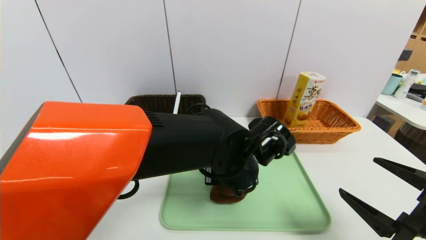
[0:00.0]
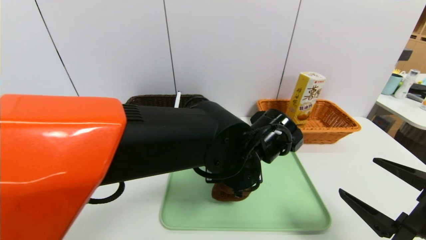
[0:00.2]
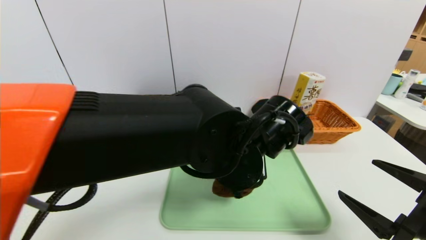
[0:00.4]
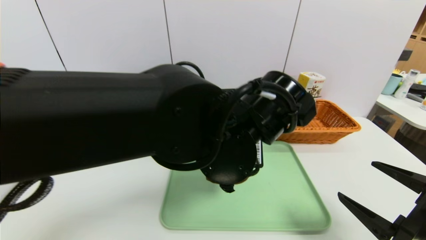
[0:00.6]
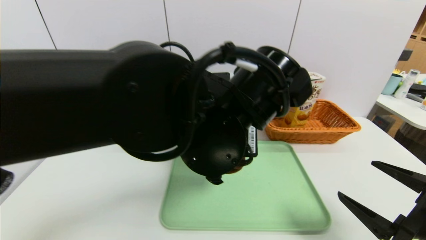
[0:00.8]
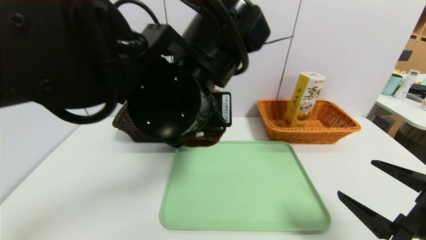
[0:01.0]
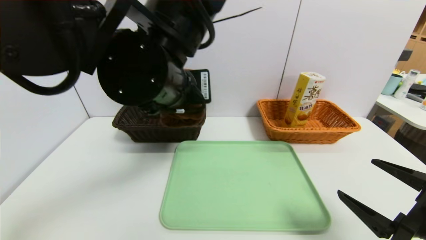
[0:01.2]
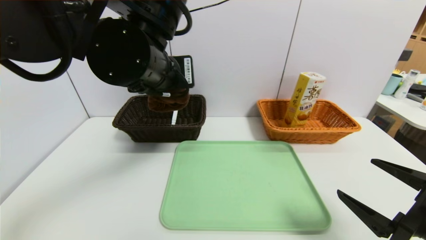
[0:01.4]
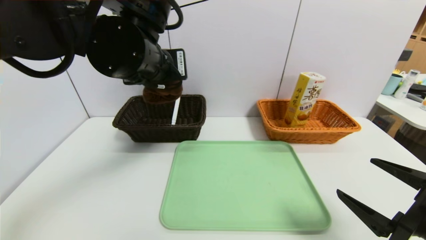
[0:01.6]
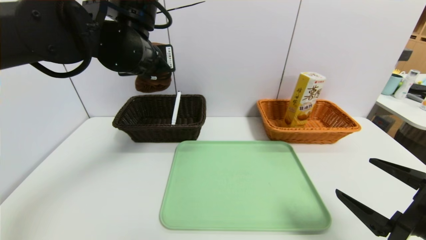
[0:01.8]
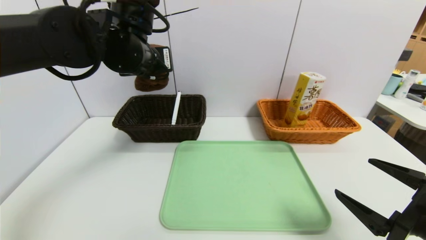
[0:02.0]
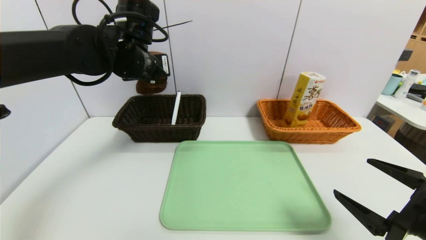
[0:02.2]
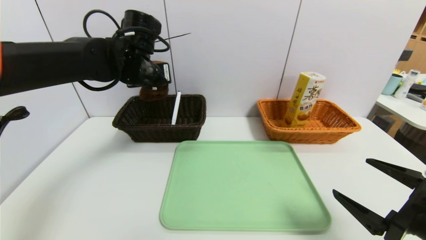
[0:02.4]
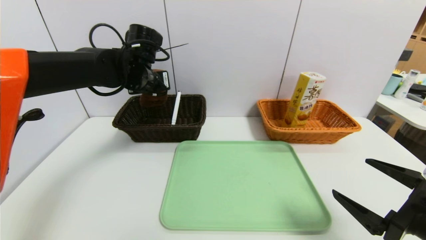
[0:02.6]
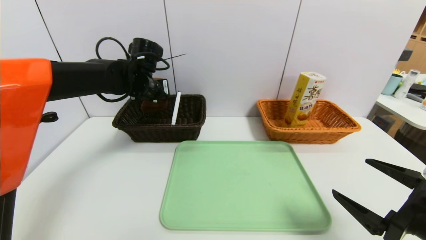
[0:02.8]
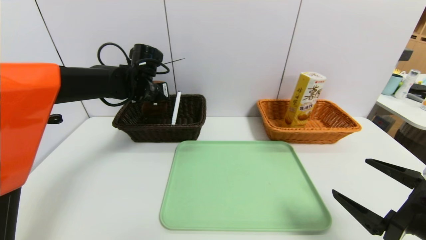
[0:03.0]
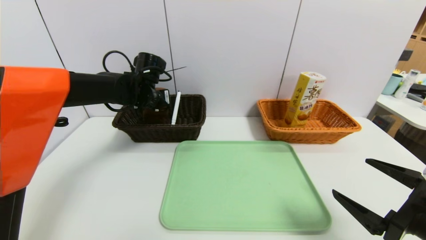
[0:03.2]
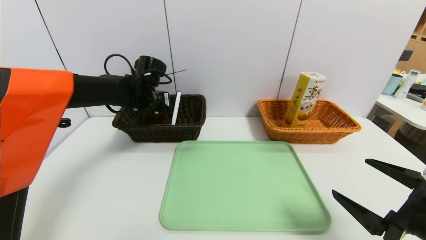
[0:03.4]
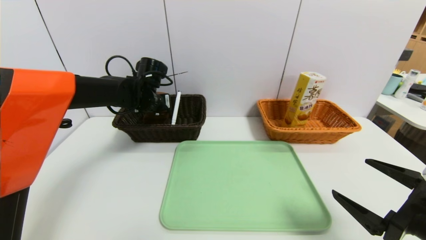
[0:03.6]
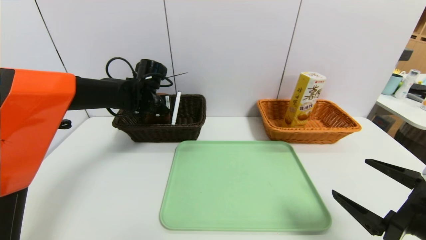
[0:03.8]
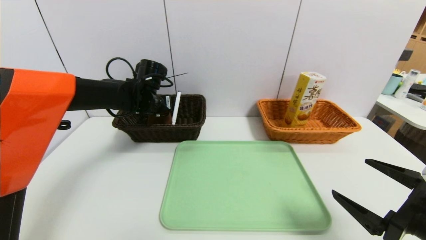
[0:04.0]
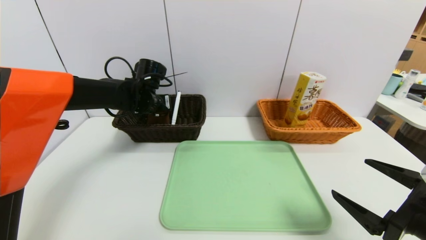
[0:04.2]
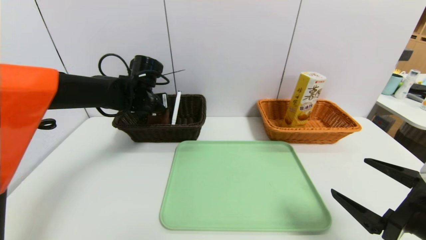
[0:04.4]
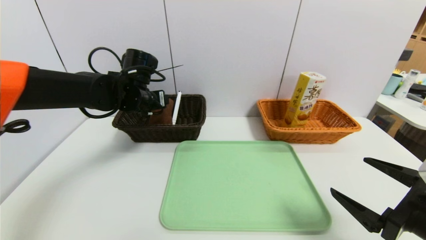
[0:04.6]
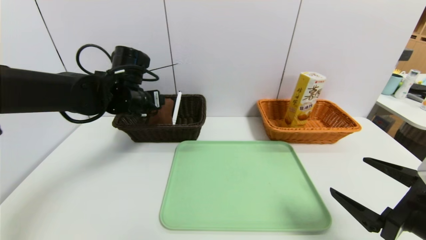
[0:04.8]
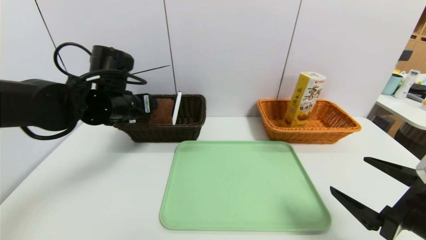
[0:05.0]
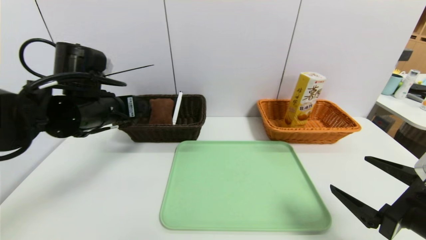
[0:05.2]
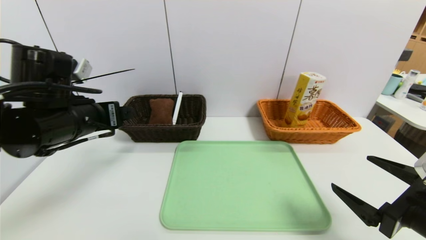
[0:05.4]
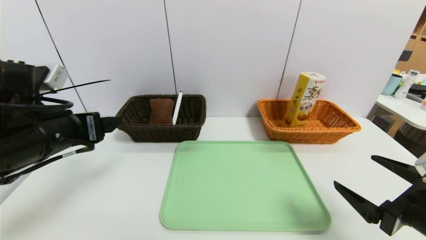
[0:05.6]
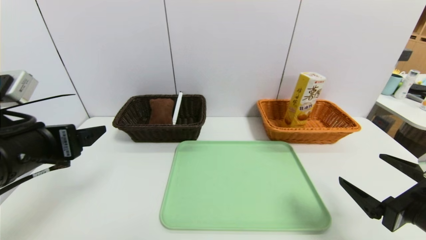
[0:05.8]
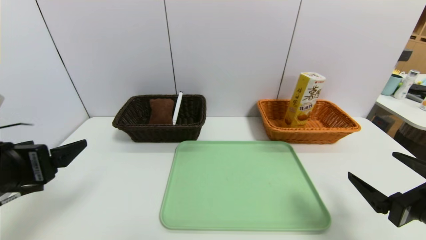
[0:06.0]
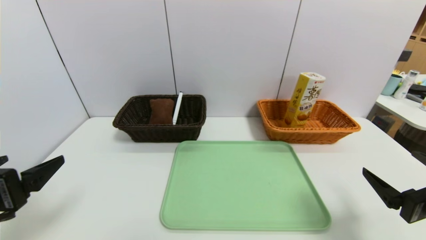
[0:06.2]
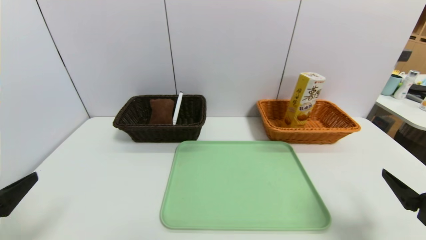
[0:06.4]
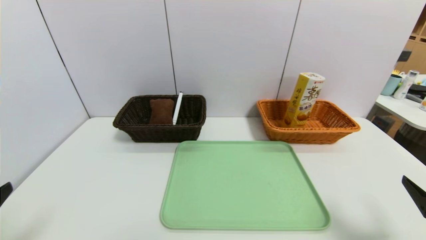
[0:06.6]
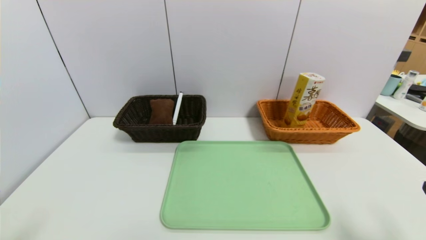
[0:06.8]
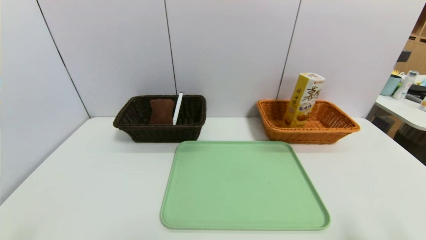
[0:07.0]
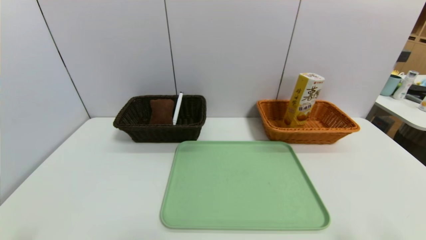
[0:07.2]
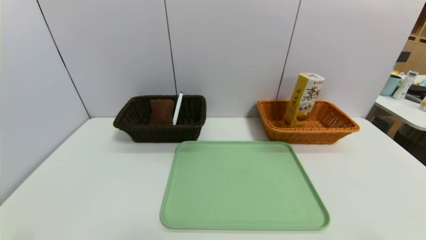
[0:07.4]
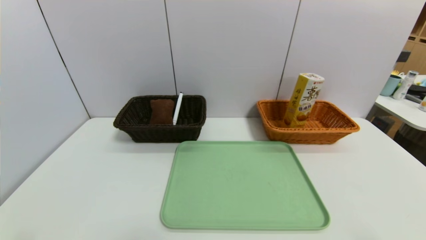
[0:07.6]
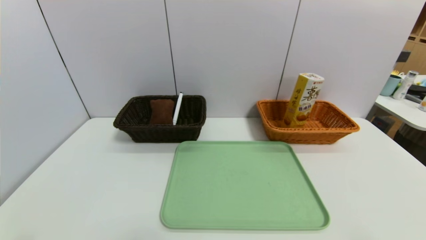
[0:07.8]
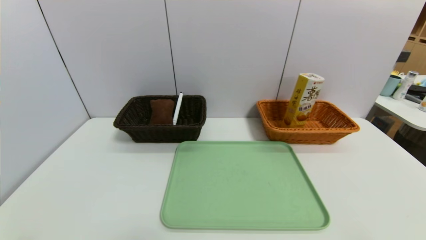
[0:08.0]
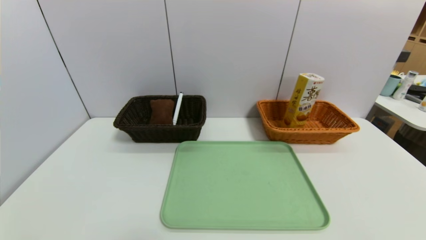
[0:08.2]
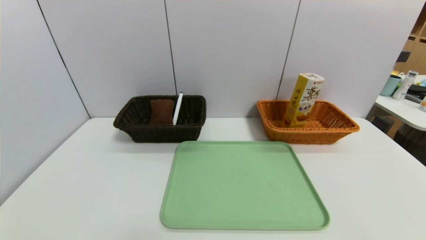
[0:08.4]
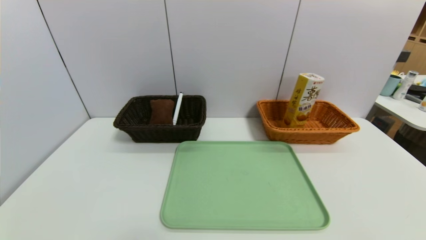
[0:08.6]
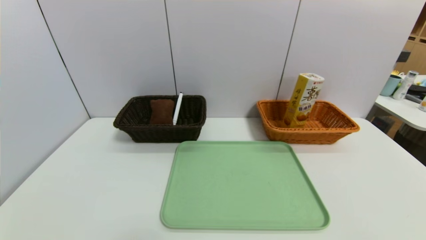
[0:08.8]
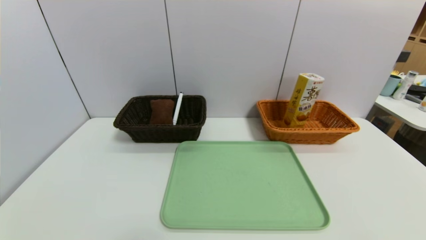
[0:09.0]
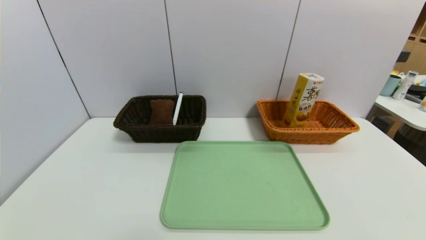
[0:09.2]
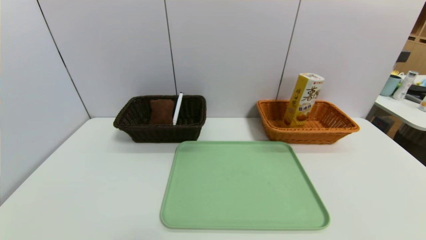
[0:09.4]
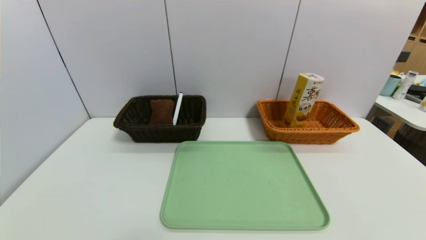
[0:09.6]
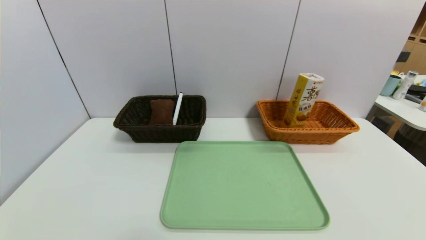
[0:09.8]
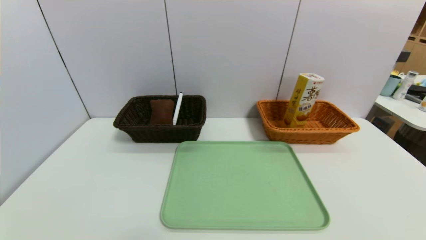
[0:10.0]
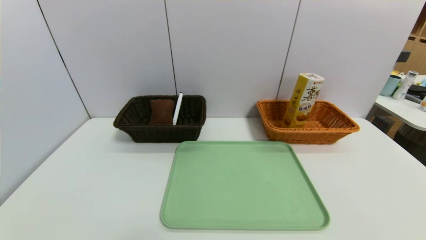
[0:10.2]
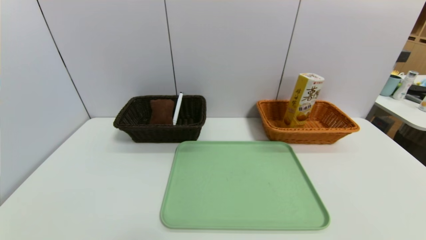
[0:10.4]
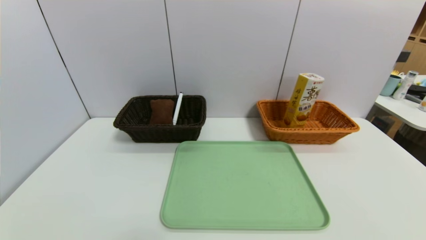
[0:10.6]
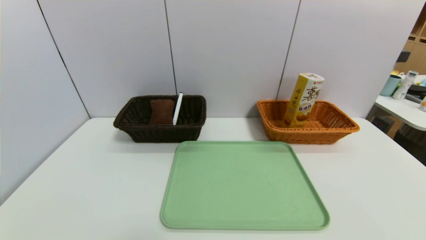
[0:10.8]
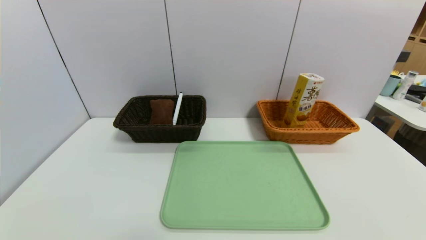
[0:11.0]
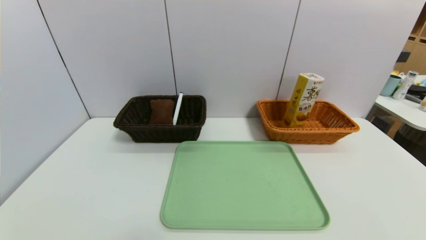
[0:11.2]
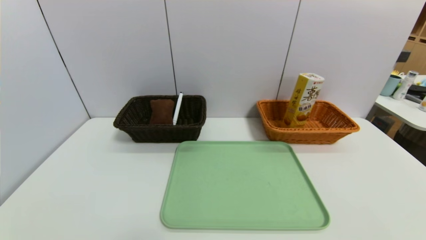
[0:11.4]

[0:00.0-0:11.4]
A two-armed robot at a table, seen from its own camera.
Task of the whole recording: place the food in the right basket with the right gripper, and place the non food items in the left basket with the left gripper.
Step, 0:00.0 to 0:04.4: Grasp the brown towel and put it in the left basket.
0:00.0 to 0:01.4: The left gripper goes approximately 20 cm upward and to the left.
0:01.4 to 0:02.8: The left gripper is displaced forward, downward and to the left by approximately 20 cm.
0:02.8 to 0:04.2: The left gripper opens.
0:04.2 to 0:05.6: The left gripper is displaced backward by some 25 cm.
0:05.6 to 0:07.2: The right gripper moves backward, about 10 cm; the left gripper goes about 20 cm backward.

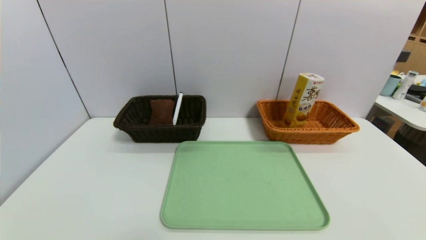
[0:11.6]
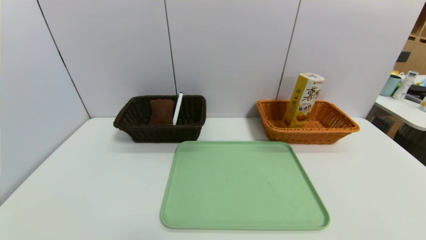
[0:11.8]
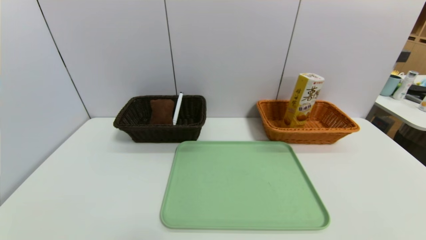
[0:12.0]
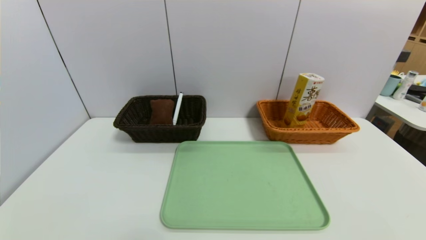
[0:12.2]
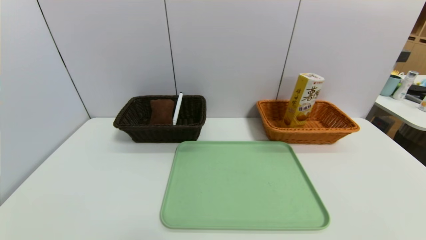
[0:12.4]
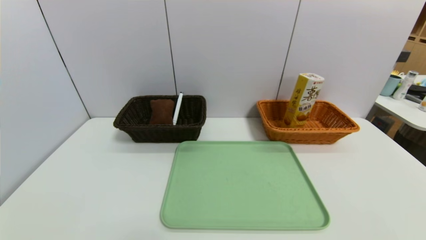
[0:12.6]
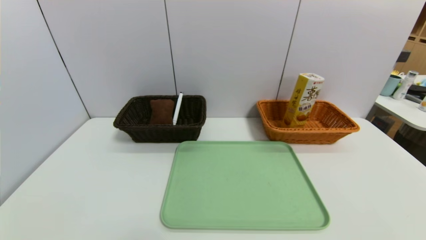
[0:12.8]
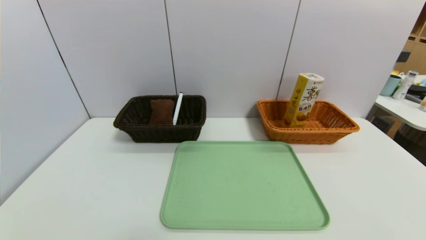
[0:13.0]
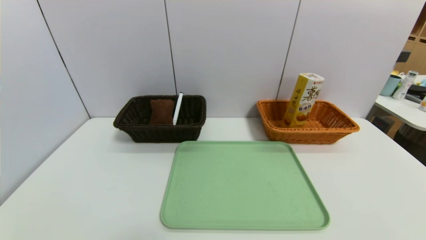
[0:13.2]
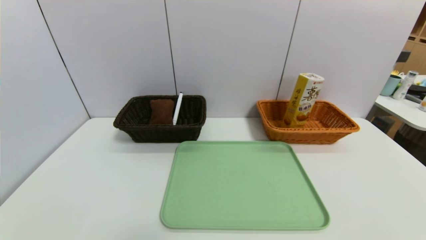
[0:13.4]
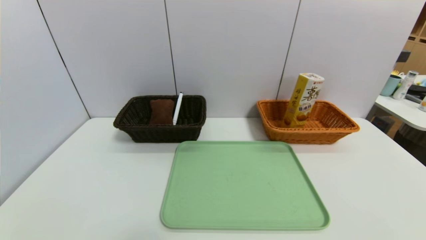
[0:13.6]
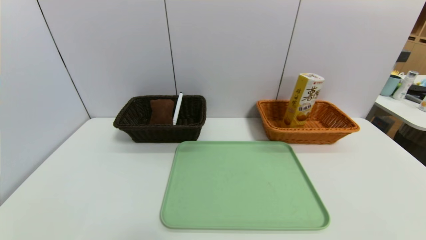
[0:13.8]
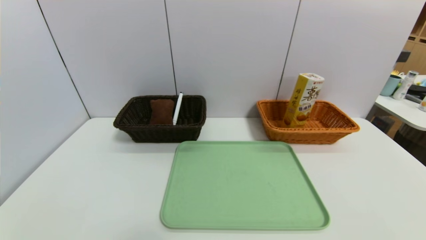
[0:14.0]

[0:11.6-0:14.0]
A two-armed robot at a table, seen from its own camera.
Task of the whole recording: place the food in the right basket with the right gripper, and place the non food items in the left basket with the left gripper.
0:11.6 to 0:14.0: The two grippers keep their place.

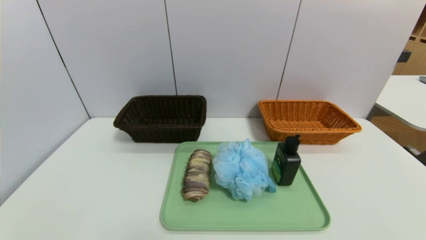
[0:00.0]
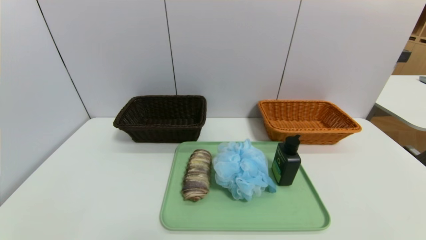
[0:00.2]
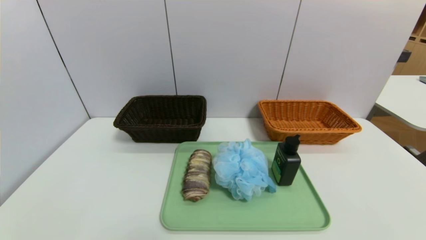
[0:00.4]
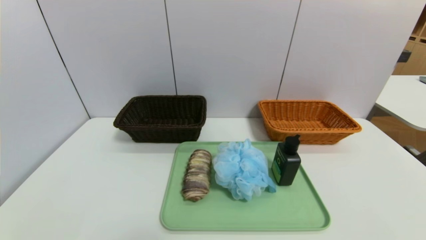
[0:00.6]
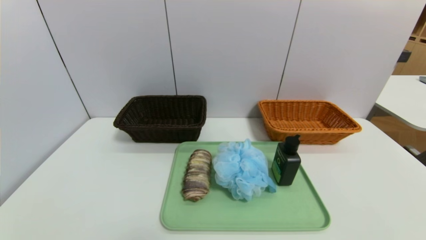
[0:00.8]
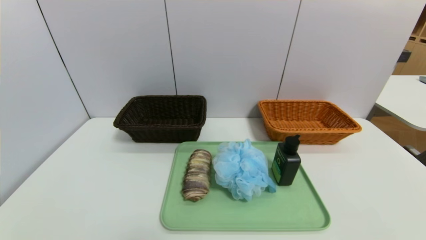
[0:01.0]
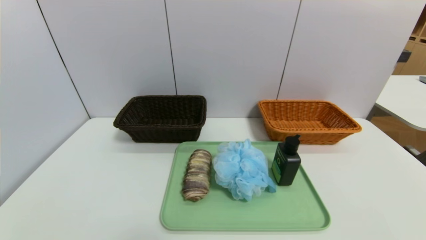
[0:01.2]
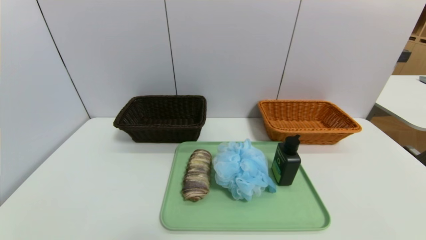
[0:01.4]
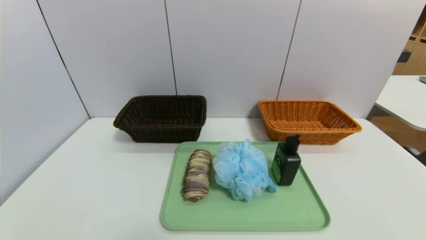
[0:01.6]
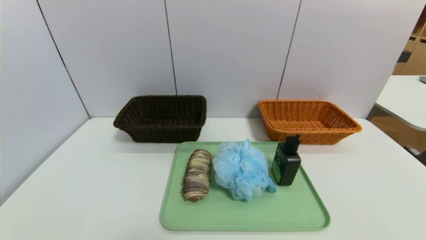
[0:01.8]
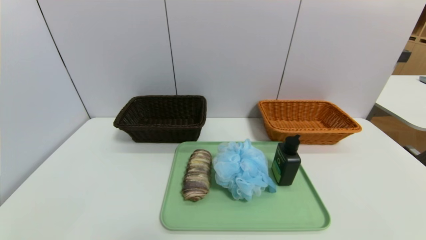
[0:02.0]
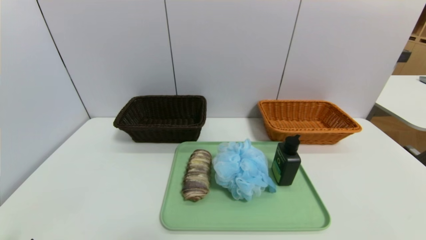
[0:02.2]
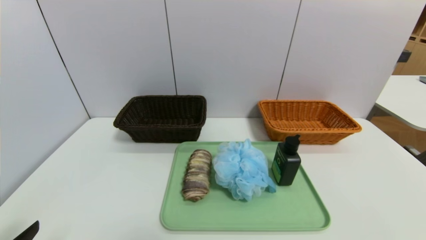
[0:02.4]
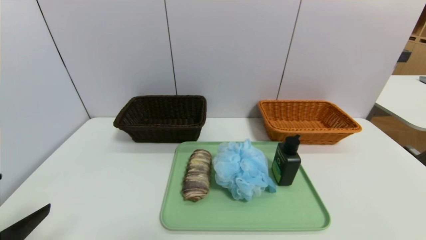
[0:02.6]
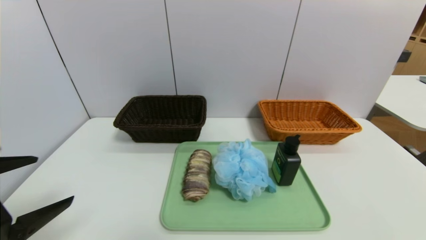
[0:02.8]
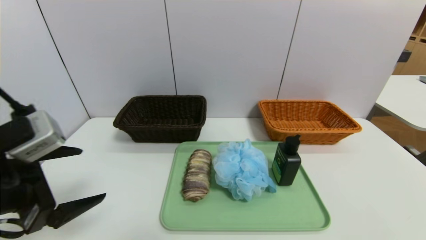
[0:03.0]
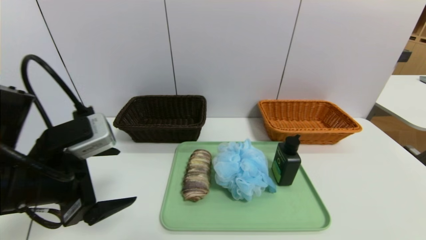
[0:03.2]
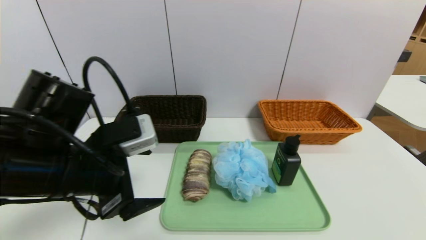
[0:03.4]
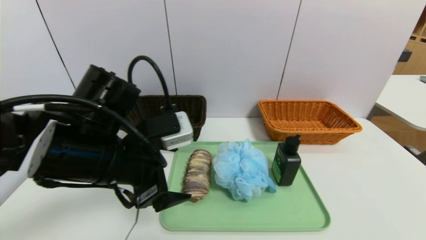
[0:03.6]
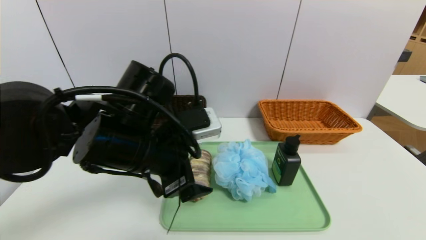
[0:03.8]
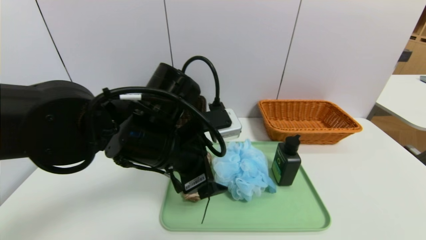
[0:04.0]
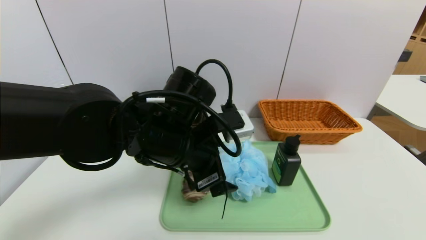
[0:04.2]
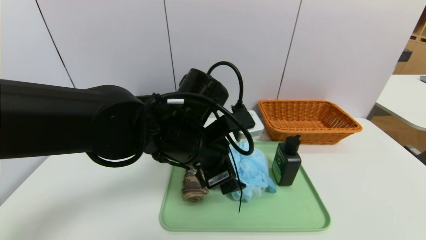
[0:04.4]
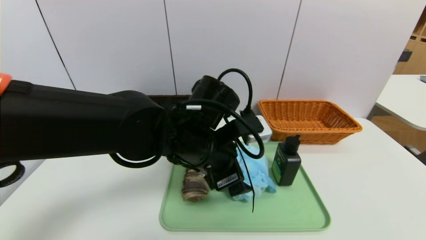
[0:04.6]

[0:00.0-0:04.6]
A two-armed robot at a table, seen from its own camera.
Task of the whole recording: place the food in the right basket with the right gripper, and place the non food items in the left basket with the left gripper.
0:00.0 to 0:01.6: The two grippers keep their place.
0:01.6 to 0:03.0: The left gripper goes some 20 cm upward and forward.
0:03.0 to 0:04.6: The left gripper moves to the right and forward, roughly 25 cm.
